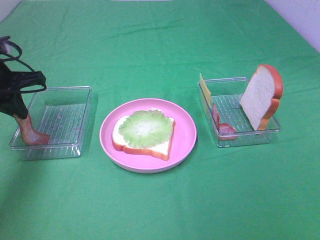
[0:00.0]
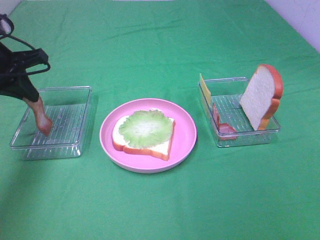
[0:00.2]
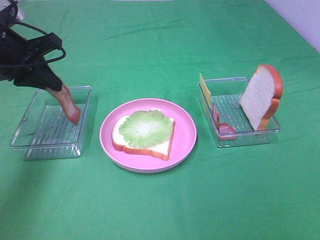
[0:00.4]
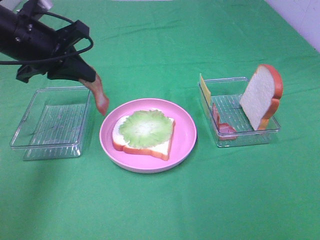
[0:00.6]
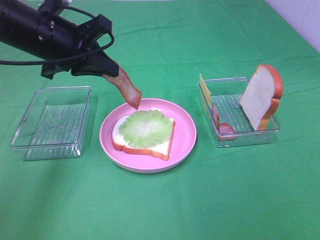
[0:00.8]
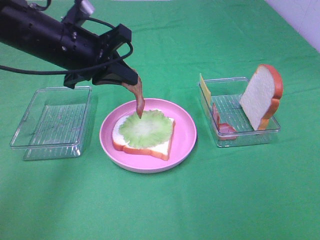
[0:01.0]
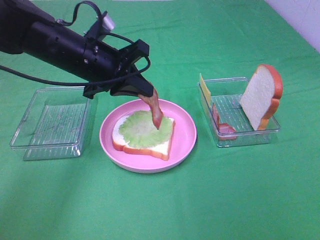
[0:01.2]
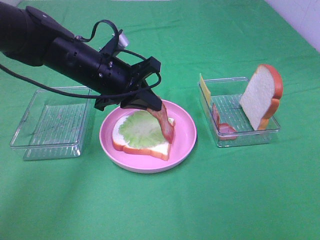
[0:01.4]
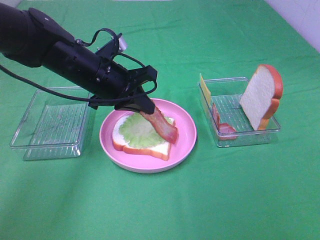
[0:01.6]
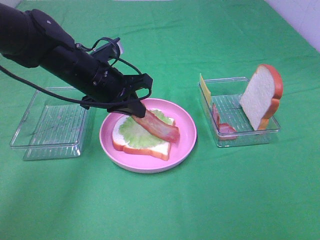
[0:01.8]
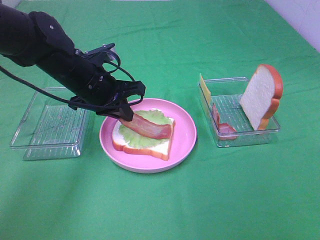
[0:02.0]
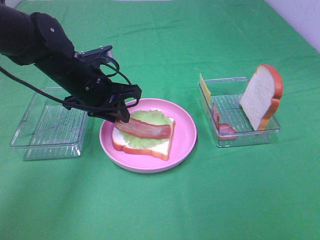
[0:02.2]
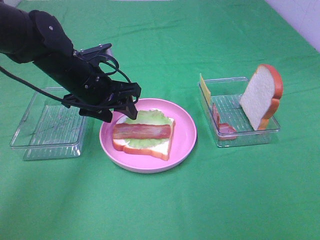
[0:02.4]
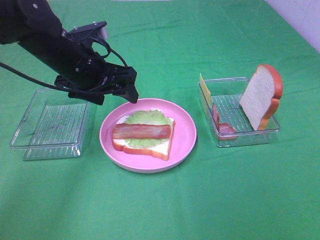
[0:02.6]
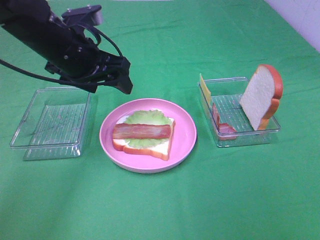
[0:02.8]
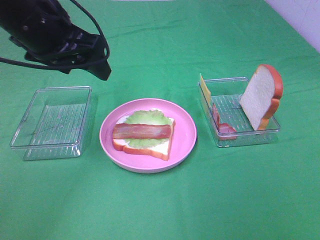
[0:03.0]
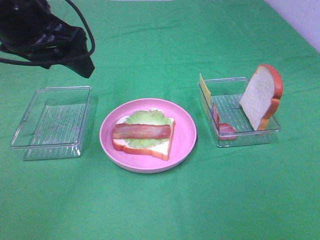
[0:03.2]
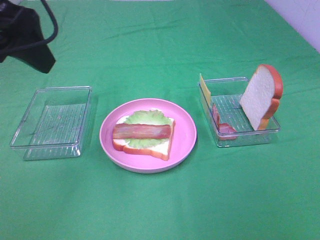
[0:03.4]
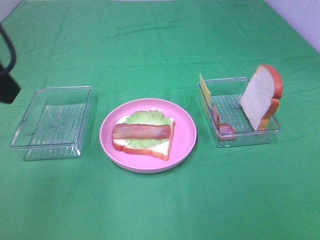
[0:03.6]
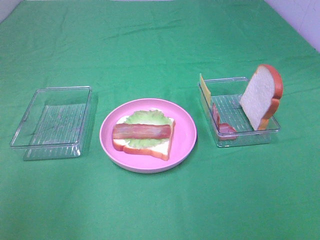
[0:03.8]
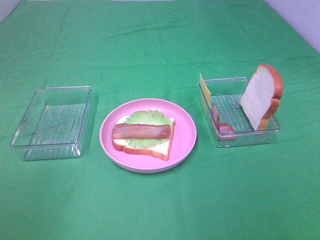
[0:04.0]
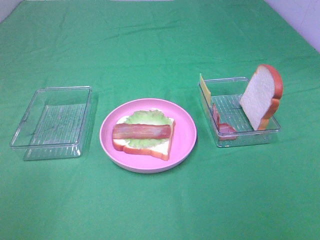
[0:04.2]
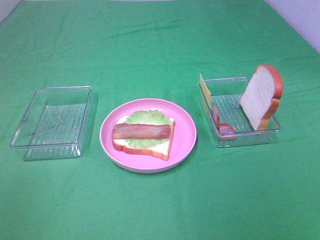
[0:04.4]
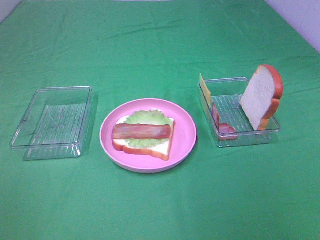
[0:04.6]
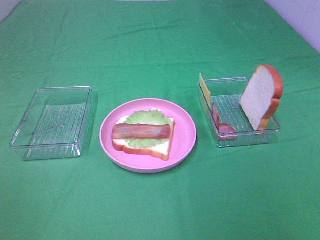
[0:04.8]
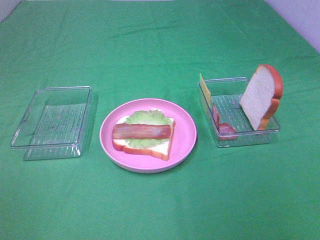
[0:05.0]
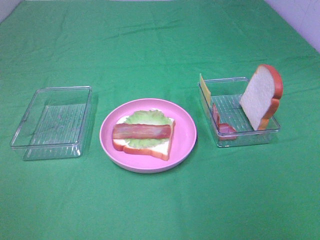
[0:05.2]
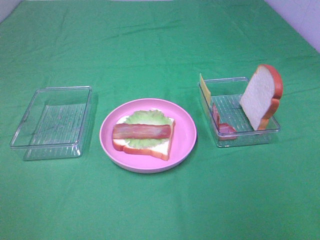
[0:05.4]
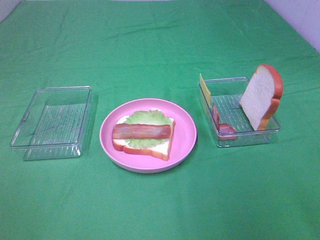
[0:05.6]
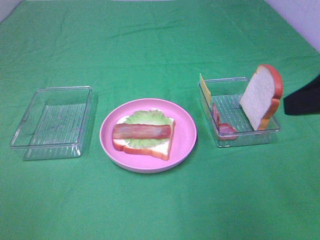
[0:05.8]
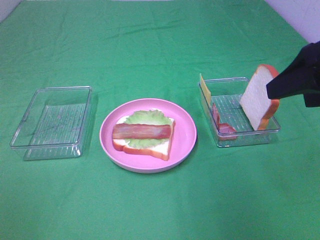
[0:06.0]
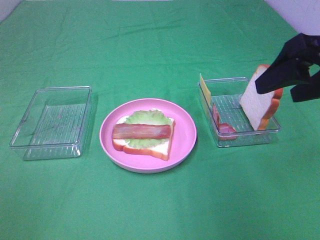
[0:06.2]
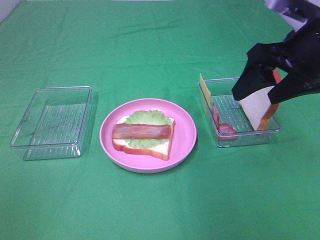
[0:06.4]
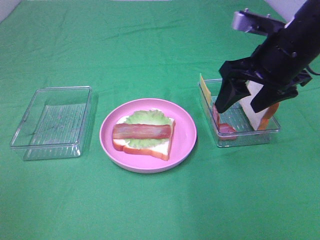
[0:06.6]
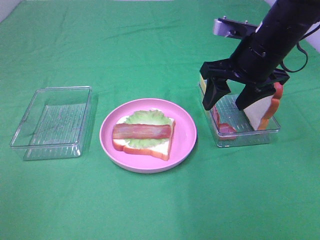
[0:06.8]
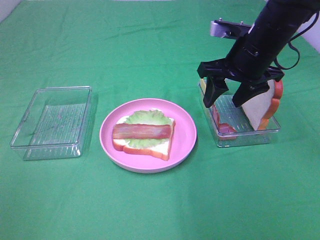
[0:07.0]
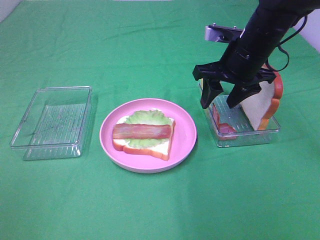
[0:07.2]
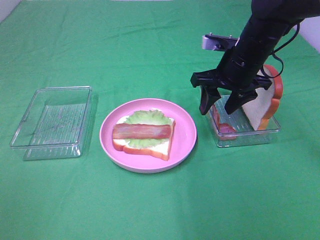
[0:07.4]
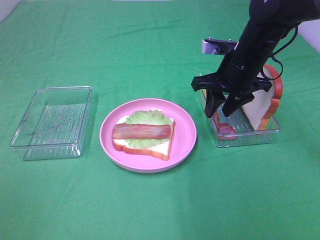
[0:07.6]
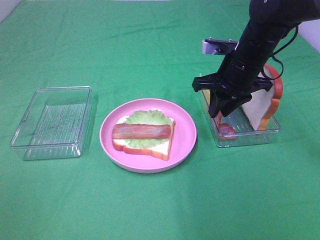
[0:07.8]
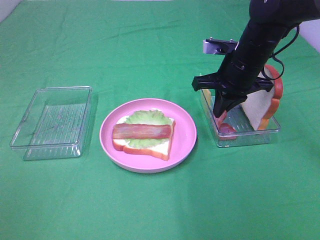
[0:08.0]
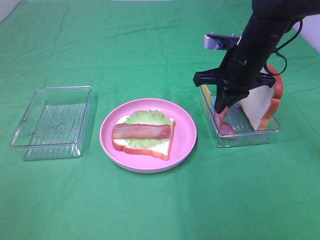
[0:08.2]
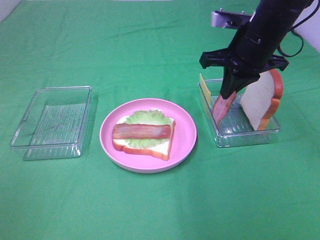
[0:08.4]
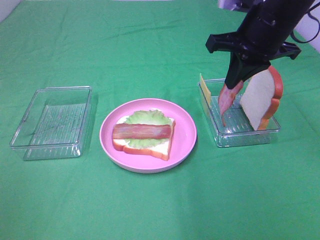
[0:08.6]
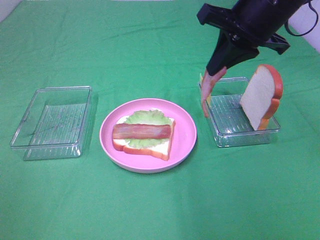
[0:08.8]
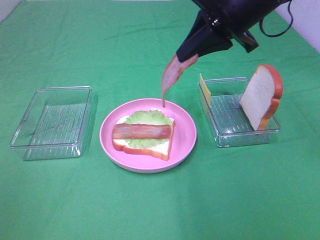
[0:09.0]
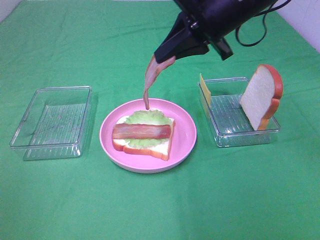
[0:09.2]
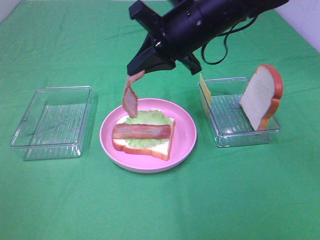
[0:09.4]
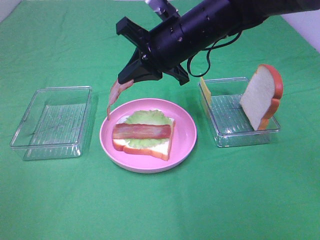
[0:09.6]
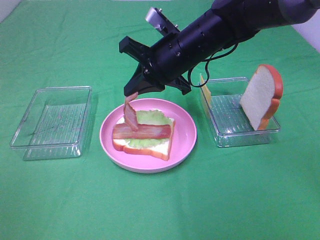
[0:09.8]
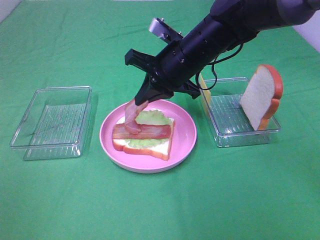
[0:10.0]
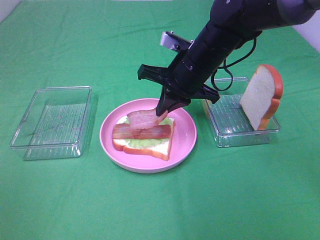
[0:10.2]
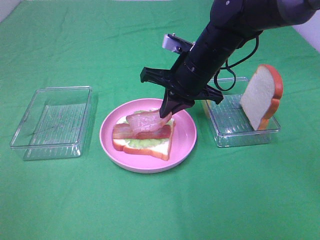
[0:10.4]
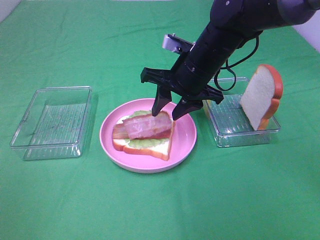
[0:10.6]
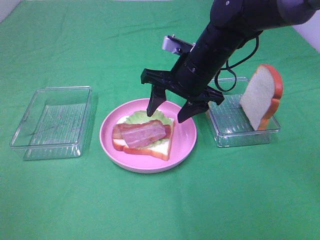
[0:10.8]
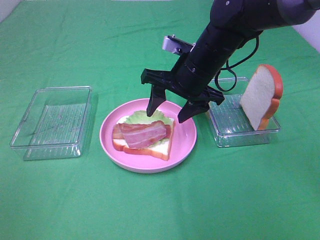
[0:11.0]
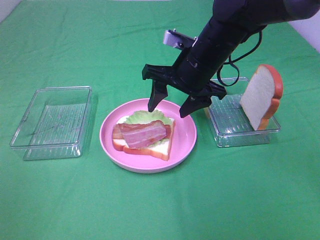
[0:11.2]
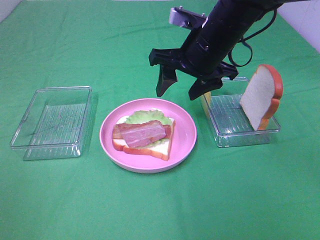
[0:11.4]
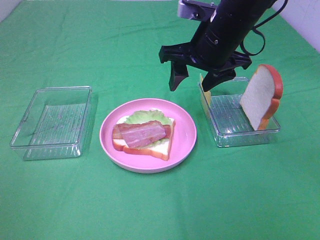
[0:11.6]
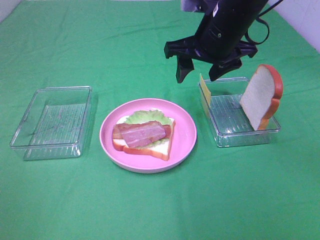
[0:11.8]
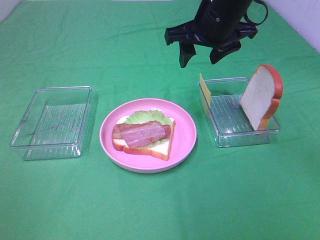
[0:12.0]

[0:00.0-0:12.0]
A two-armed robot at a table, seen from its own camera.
Task of the whole recording: Make sandwiches.
Step, 0:00.0 to 0:02.6: Left hand:place bacon on lettuce slice.
Step, 0:02.8 to 0:08.0: Right hand:grab the bacon.
Step, 0:08.2 to 0:10.8: Right hand:place bacon on bacon.
0:00.0 to 0:01.6: The left gripper is displaced to the right by approximately 15 cm.
0:01.6 to 0:03.0: The left gripper moves upward and to the left, roughly 15 cm, and opens.
0:03.0 to 0:04.4: The left gripper travels backward and to the left by roughly 35 cm.
0:04.4 to 0:06.0: The right gripper goes some 20 cm forward.
0:06.0 to 0:07.6: The right gripper travels forward, downward and to the left by approximately 25 cm, and closes up.
0:07.6 to 0:09.0: The right gripper moves upward, roughly 15 cm, and closes its fingers.
0:09.0 to 0:10.4: The right gripper shifts about 15 cm downward and to the left.
0:10.4 to 0:12.0: The right gripper goes some 10 cm upward, and opens its fingers.

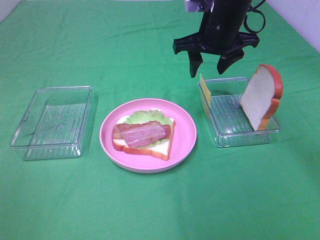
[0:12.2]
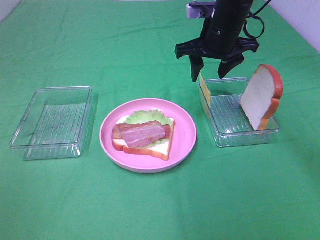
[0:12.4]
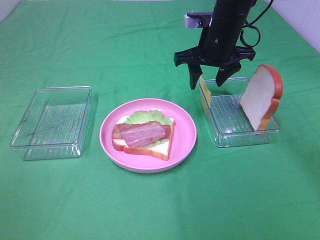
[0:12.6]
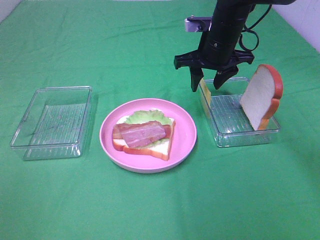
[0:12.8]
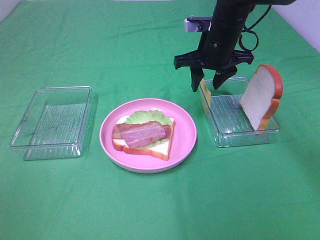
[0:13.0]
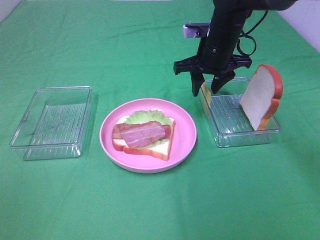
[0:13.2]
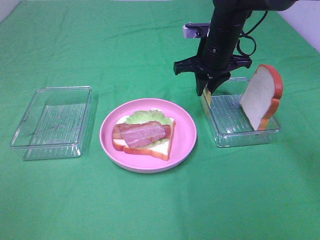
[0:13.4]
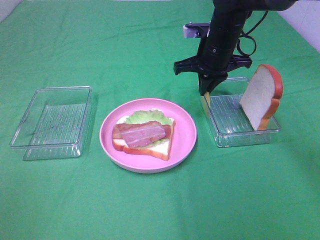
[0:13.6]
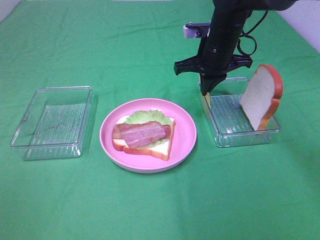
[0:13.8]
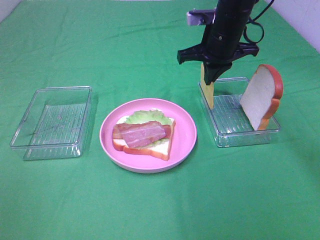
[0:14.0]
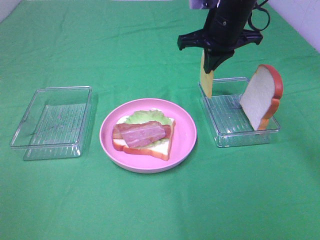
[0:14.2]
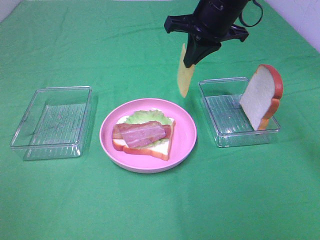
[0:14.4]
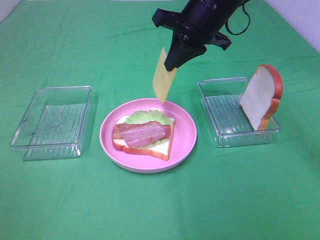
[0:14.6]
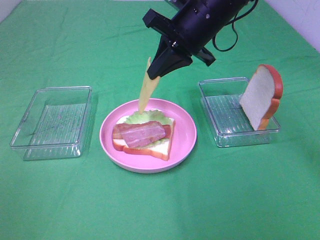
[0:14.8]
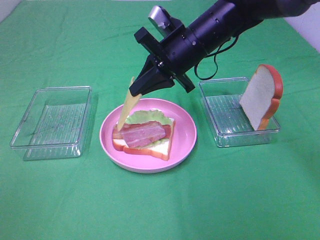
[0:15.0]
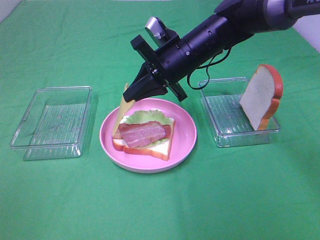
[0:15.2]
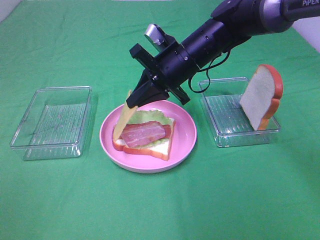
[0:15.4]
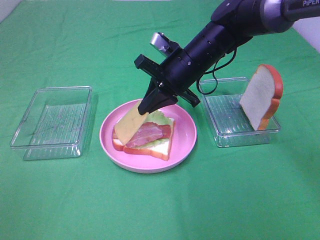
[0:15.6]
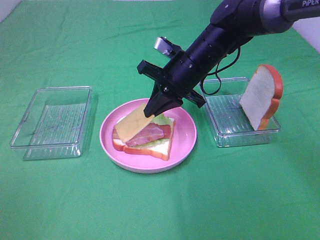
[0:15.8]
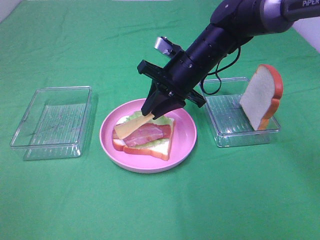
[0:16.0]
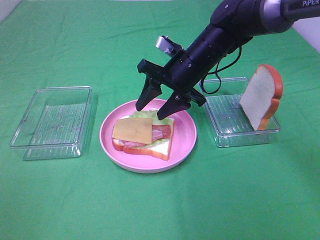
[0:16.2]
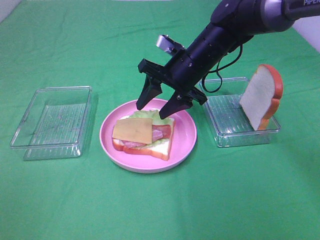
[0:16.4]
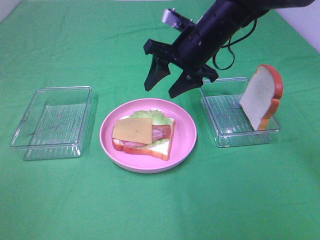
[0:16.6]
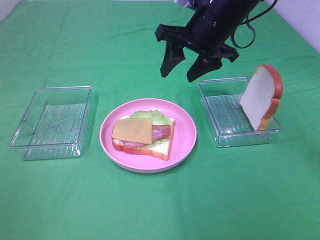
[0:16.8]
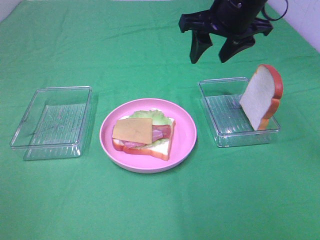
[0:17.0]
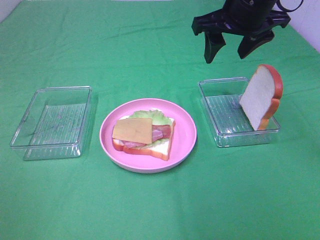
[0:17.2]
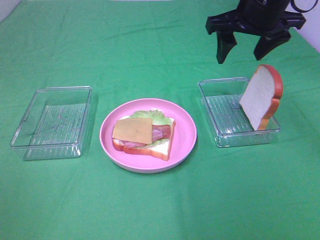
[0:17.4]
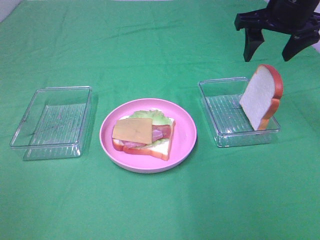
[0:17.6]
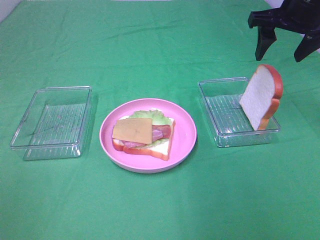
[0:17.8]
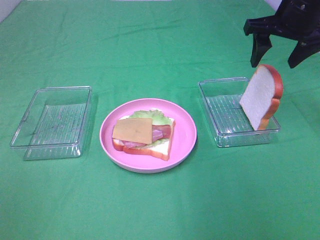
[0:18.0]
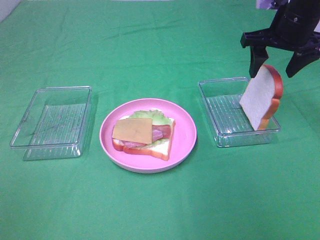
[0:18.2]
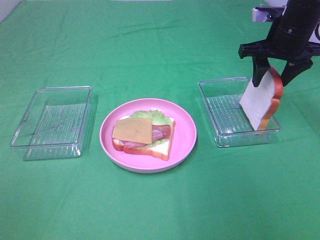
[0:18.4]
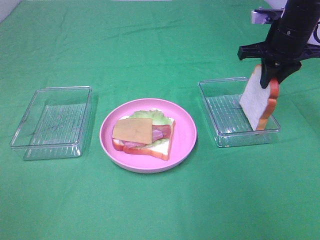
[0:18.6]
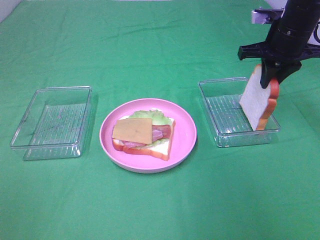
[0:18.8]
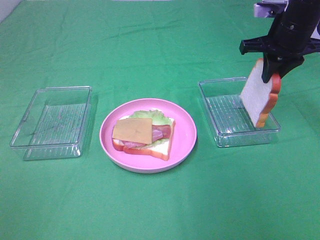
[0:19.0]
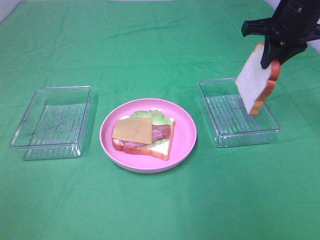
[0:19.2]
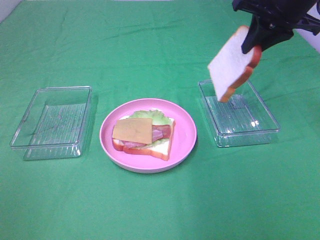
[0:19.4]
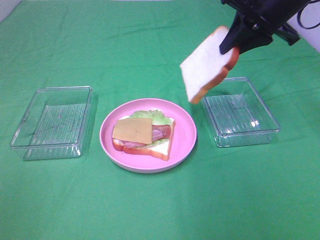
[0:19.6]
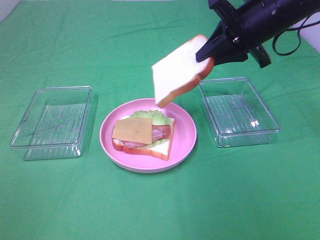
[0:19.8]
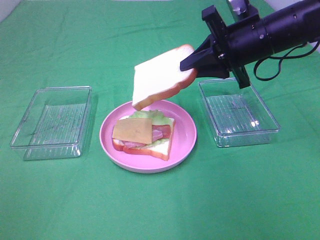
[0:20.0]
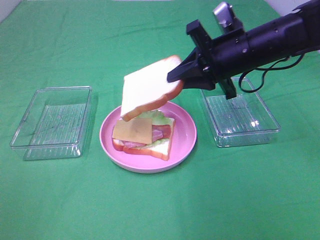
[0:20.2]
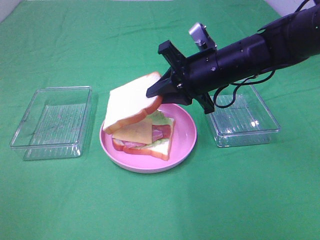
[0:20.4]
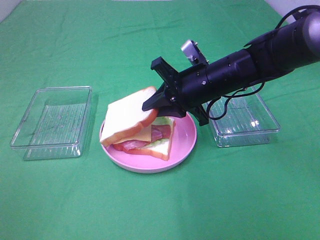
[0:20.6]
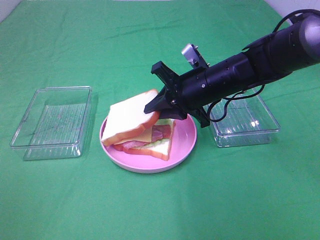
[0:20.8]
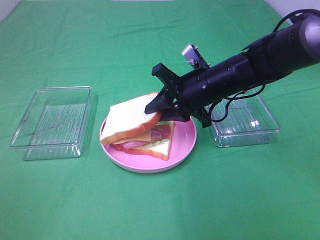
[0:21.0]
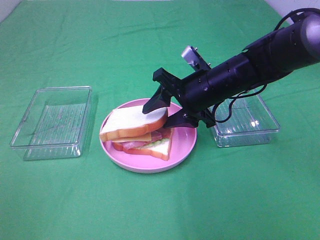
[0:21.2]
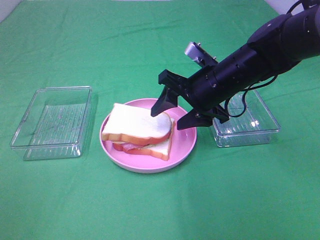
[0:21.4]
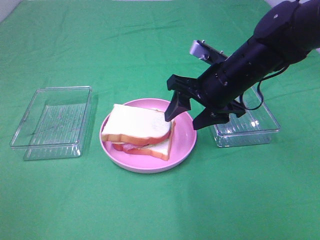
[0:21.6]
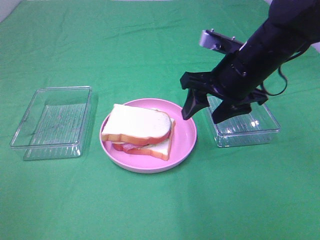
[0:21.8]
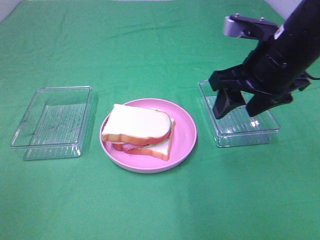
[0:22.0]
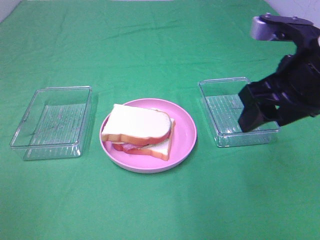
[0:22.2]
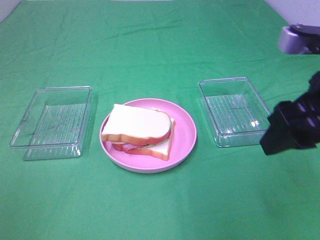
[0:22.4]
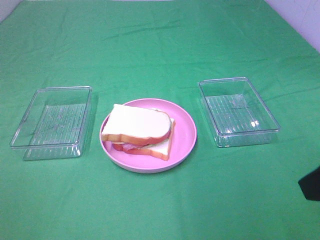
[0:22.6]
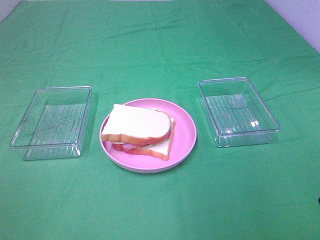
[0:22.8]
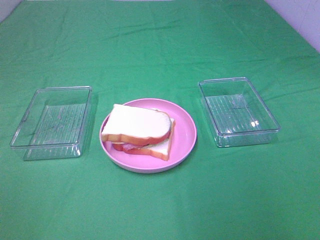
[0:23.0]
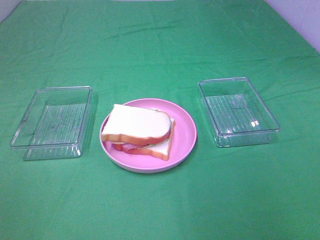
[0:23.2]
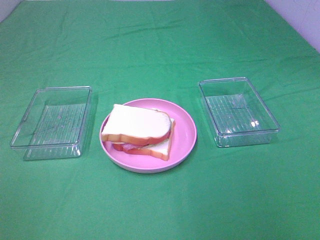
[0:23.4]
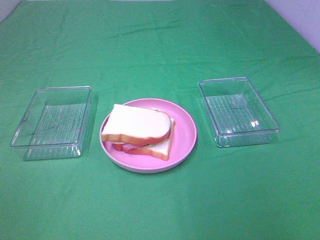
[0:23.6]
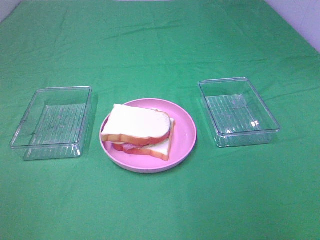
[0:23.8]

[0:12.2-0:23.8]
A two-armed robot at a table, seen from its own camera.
Task of the whole recording: Make sandwiches.
Step, 0:12.2 to 0:13.8: Right hand:grab the cheese slice.
Step, 0:14.0 to 0:16.0: Right hand:place the cheese slice on top of the bacon.
Step, 0:16.2 to 0:18.6: Right hand:grab the bread slice.
Step, 0:18.8 to 0:21.6: Right hand:place the bread slice on the cheese slice.
0:12.2 to 0:13.6: The right gripper travels downward by approximately 5 cm, and closes up.
0:13.6 to 0:15.0: The right gripper travels to the left and backward by roughly 10 cm, and goes upward and returns, approximately 10 cm each way.
0:15.0 to 0:16.6: The right gripper opens up.
0:16.6 to 0:18.0: The right gripper travels to the right by some 15 cm.
0:18.0 to 0:19.4: The right gripper closes its fingers.
0:19.4 to 0:21.0: The right gripper moves downward and to the left, approximately 20 cm.
0:21.0 to 0:22.4: The right gripper goes about 25 cm backward, upward and to the right, and opens.
0:22.4 to 0:23.8: The right gripper travels backward by about 15 cm.
